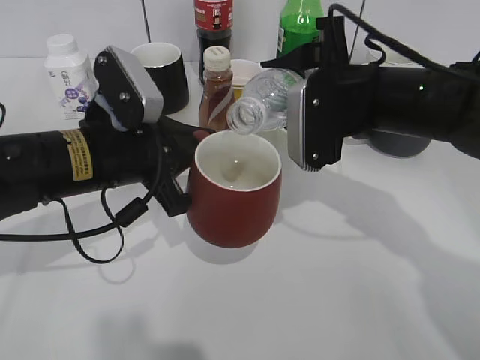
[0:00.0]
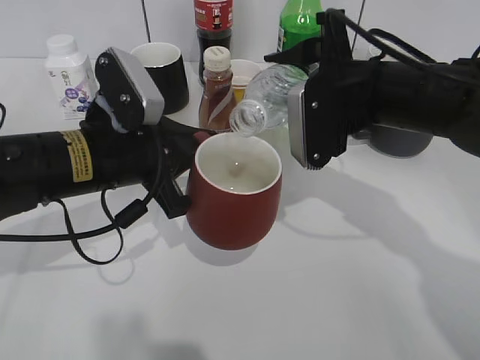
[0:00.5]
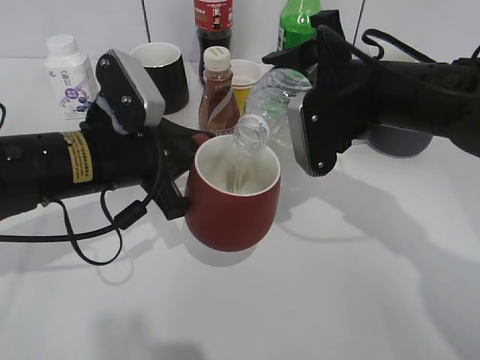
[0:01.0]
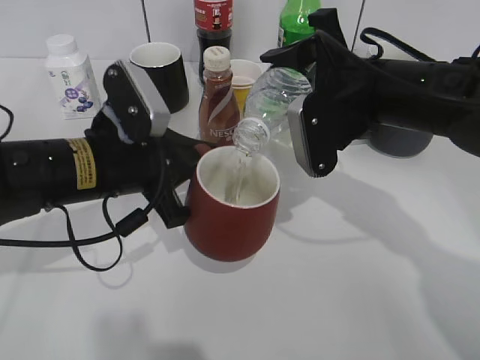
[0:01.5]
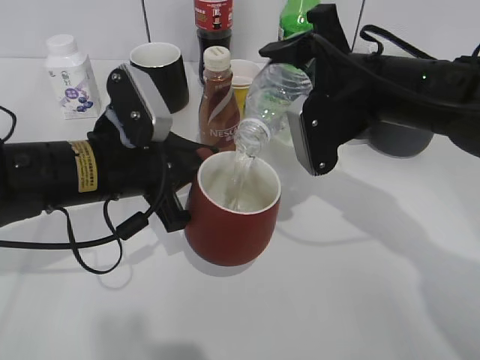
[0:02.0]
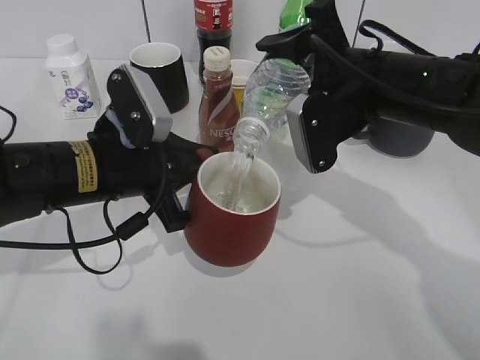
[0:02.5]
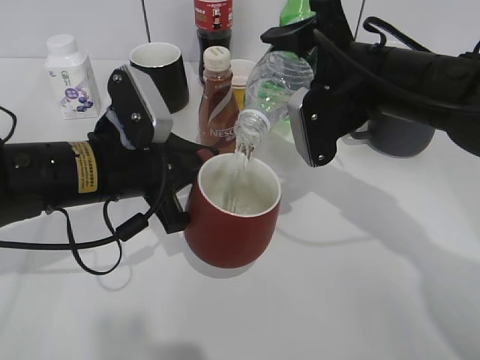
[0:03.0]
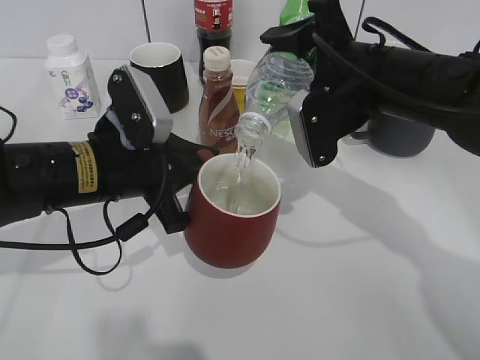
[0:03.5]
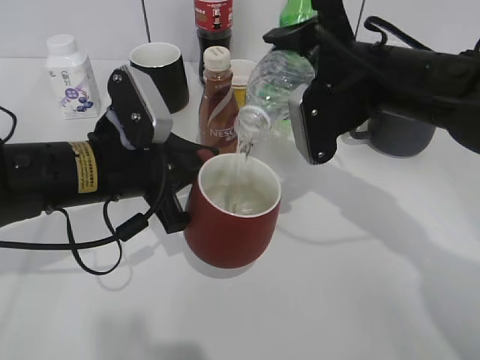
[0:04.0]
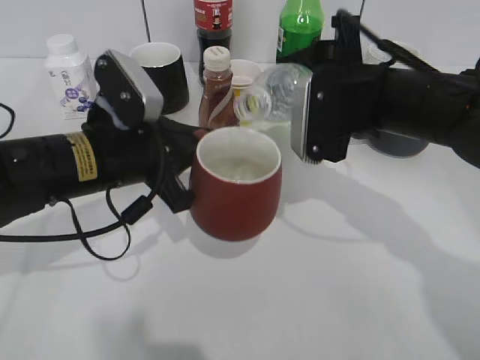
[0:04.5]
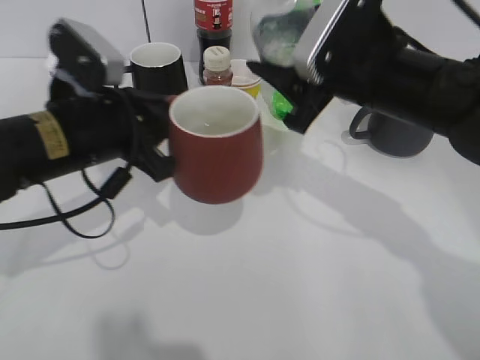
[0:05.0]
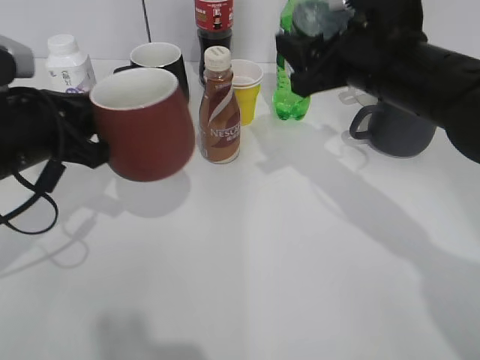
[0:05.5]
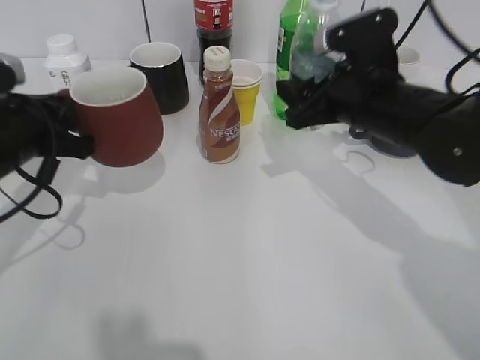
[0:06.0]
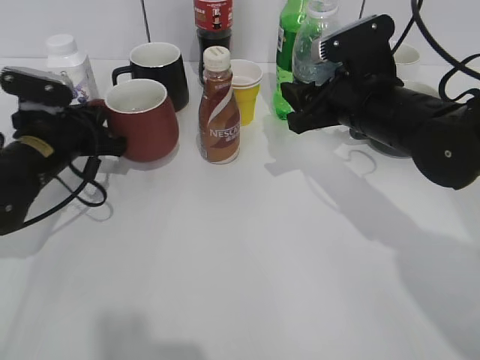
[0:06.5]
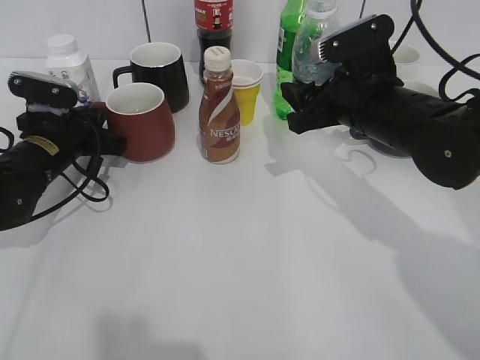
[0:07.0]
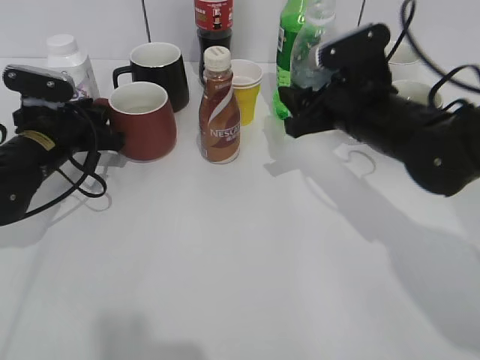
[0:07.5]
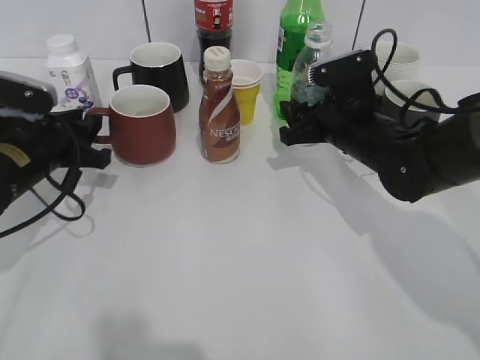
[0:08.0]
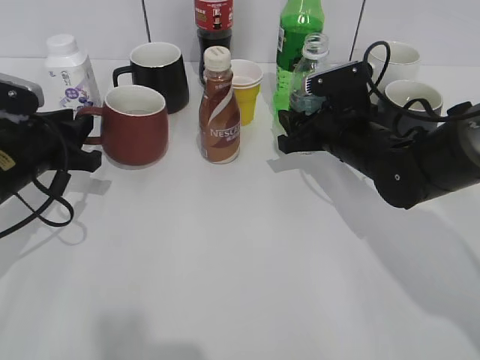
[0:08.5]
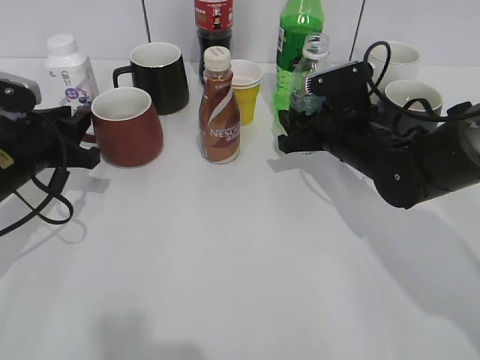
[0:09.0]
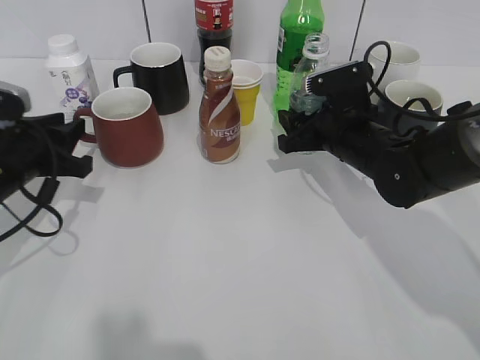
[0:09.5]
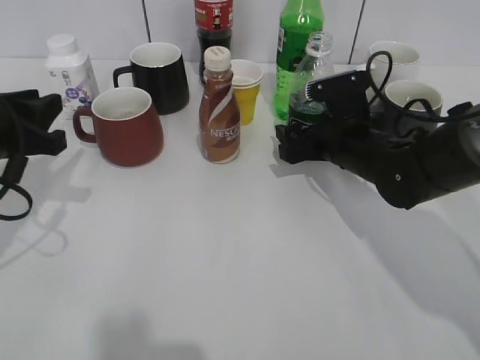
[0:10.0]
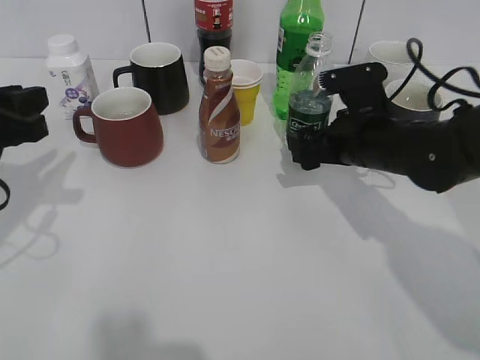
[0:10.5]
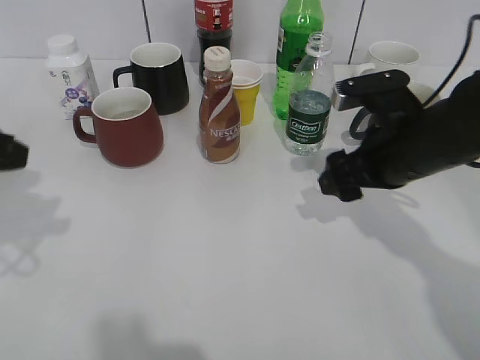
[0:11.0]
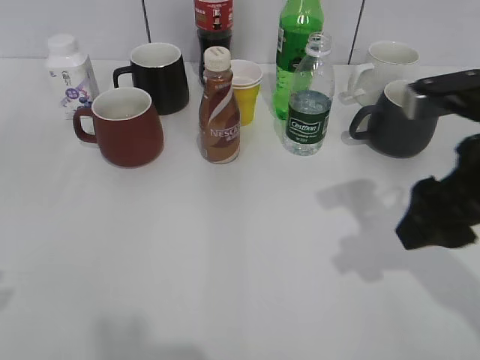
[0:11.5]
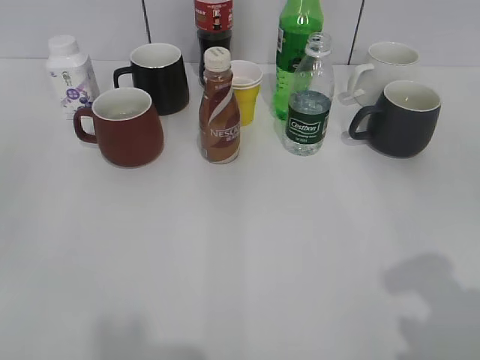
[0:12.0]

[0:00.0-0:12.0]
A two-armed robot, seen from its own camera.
Step, 0:00.0 to 0:04.5: Pour the water from bottle to cup with right gripper.
Step, 0:05.0 to 0:07.5: Place the red cup on the table with left gripper.
Step, 0:08.0 to 0:10.0: Place the water bottle on the table with right gripper.
0:02.0 to 0:04.0: The grippers make only small movements.
0:04.0 to 0:06.0: The left gripper moves to the left, about 10 cm.
0:06.0 to 0:08.0: The left gripper opens up, while the right gripper travels downward by roughly 5 cm.
0:08.0 to 0:10.0: The right gripper opens up, while the left gripper moves upward and backward, approximately 10 cm.
0:10.0 to 0:12.0: The right gripper shifts roughly 35 cm backward, upward and to the right, and closes. The left gripper goes some 20 cm backward.

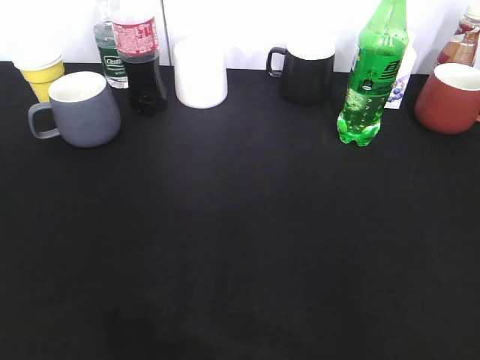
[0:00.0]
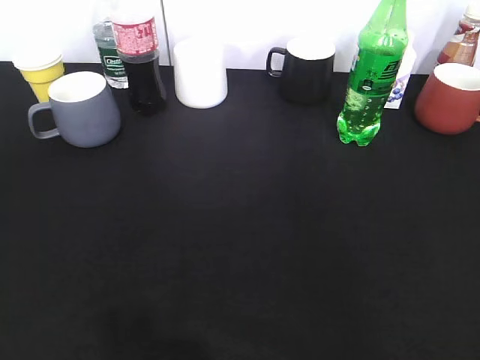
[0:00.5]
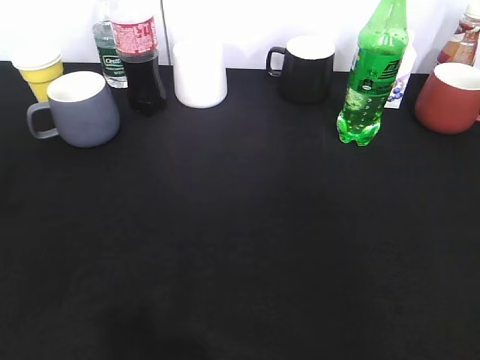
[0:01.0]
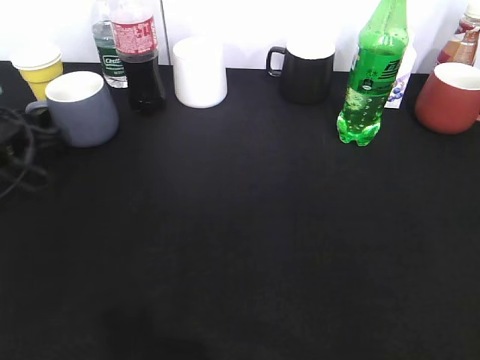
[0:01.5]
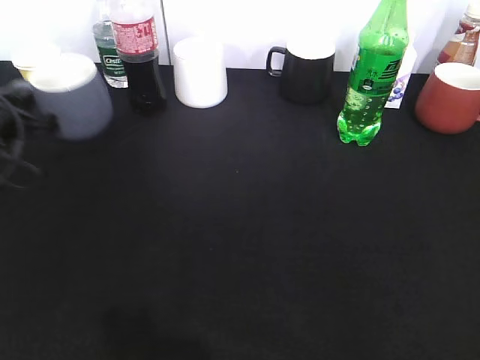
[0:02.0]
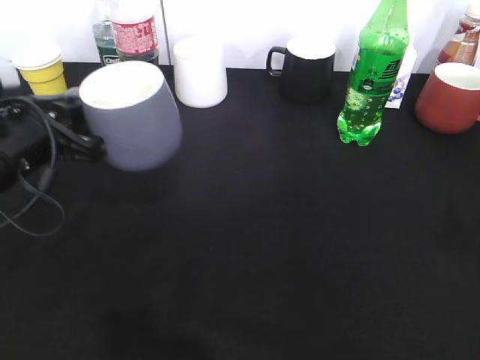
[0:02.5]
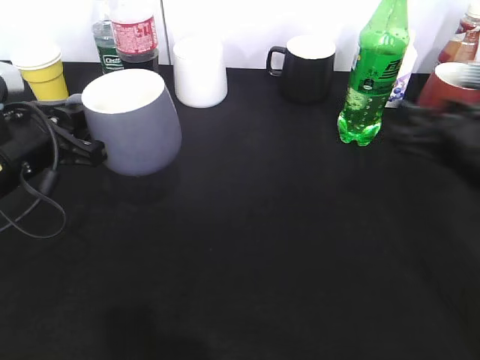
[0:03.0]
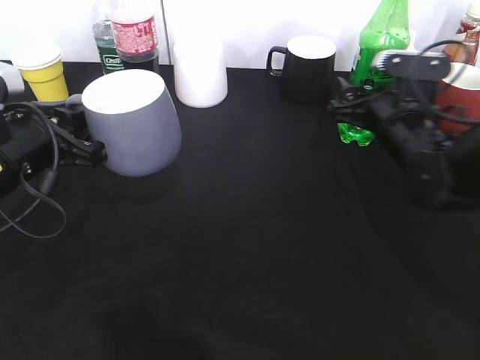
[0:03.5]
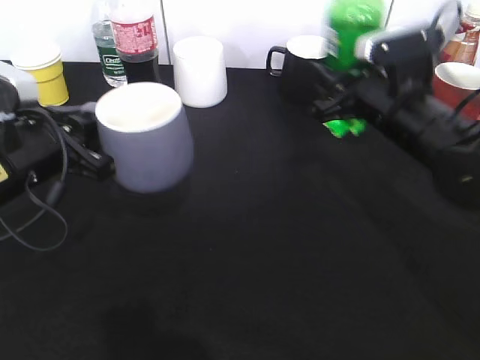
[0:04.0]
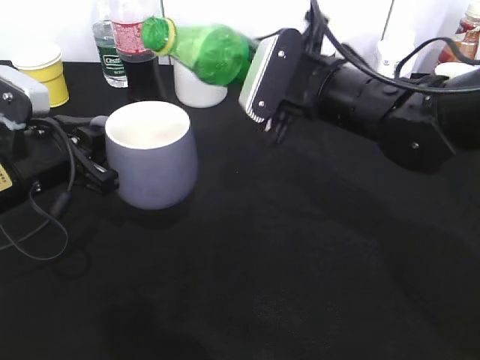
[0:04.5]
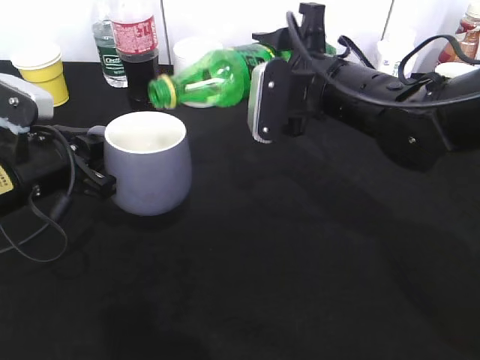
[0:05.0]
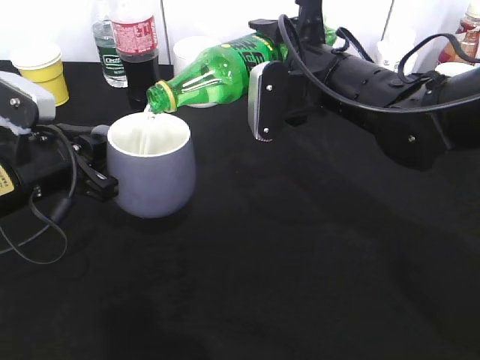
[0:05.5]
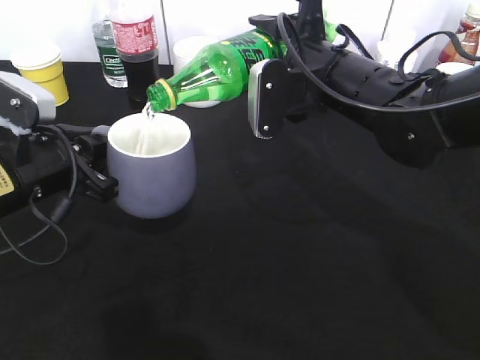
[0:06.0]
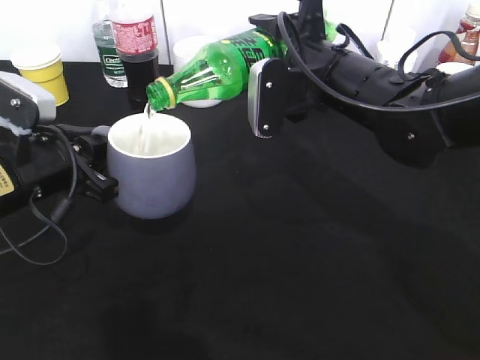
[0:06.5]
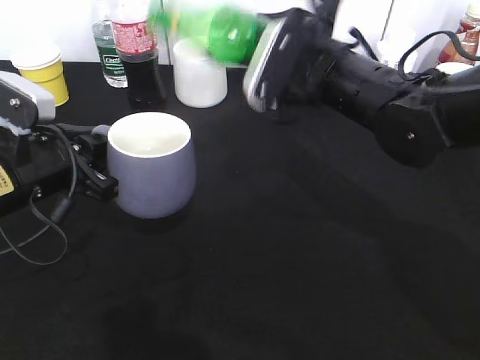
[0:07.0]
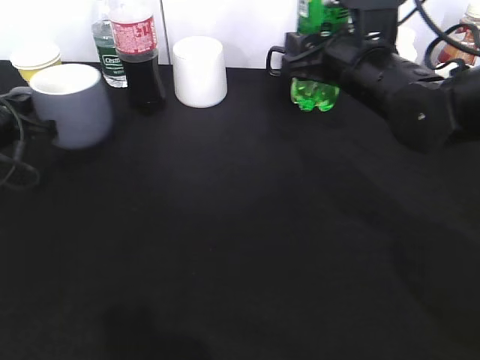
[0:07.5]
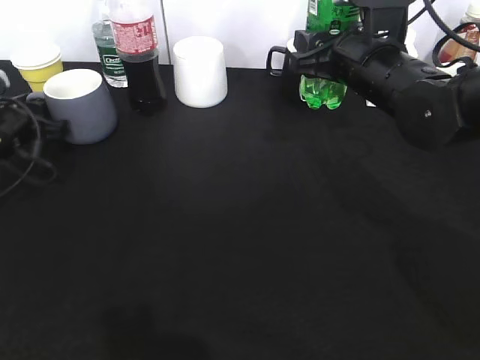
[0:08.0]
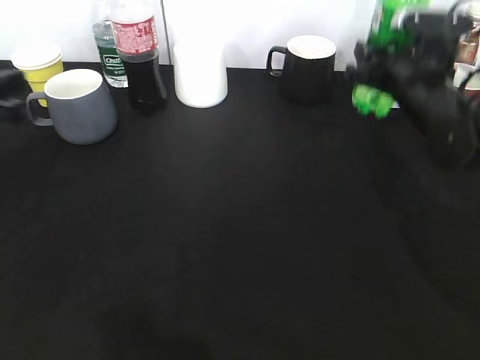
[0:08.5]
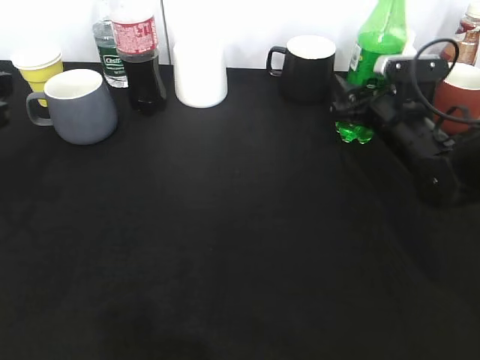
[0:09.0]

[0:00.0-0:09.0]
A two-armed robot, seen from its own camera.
Step, 0:02.0 to 0:02.5: Lift the grey cup with left gripper.
Step, 0:03.0 to 0:03.5: Grasp the bottle with sprite with right gripper.
Step, 0:04.0 to 0:06.5: Pour the sprite from bottle to cup with right gripper.
0:00.0 to 0:02.0: The left gripper shifts about 35 cm forward, and closes its fingers.
0:02.0 to 0:04.5: The right gripper shifts approximately 40 cm forward and to the left, and closes its fingers. Meanwhile the left gripper goes some 10 cm to the right and backward.
0:07.0 to 0:09.0: The right gripper goes some 15 cm to the right and downward, and opens up. The left gripper goes roughly 10 cm upward and to the left, moves roughly 10 cm forward and comes back, and opens its fingers.

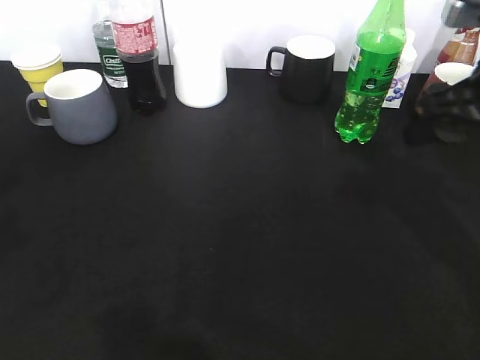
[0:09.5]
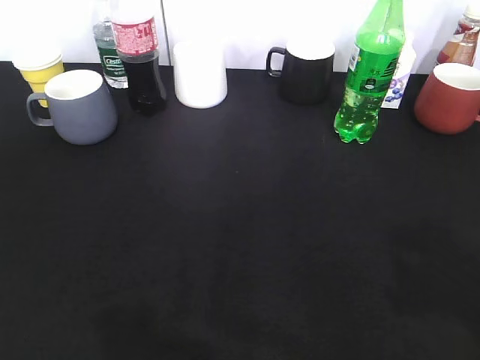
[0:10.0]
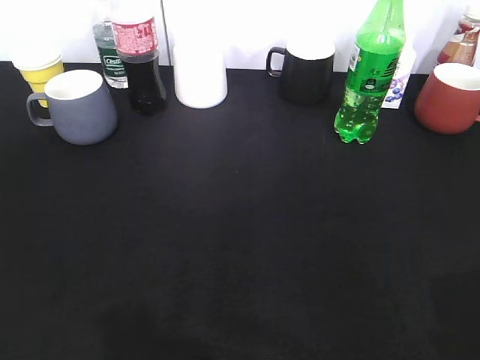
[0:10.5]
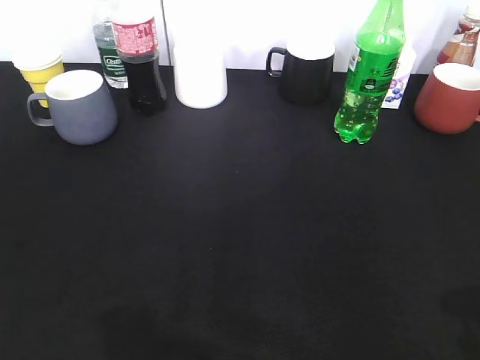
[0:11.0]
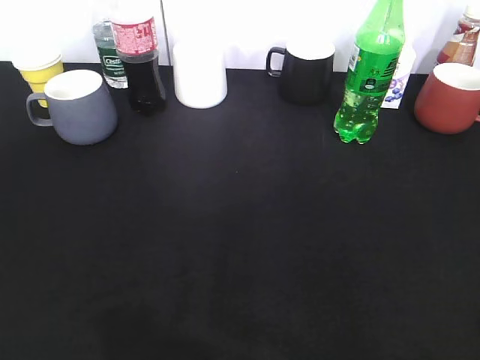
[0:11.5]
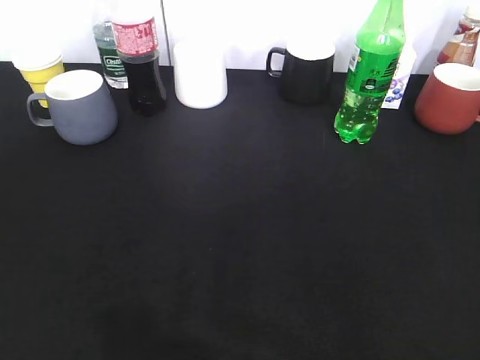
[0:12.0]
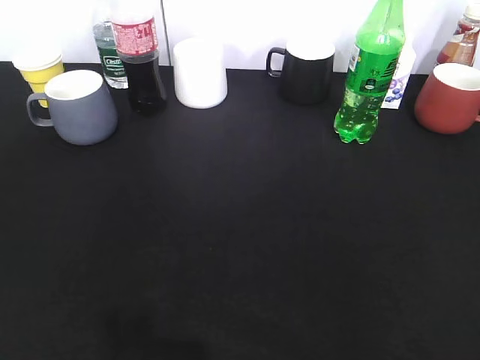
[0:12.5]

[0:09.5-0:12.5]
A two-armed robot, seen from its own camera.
0:09.5 to 0:11.0: The two grippers go approximately 20 cm backward.

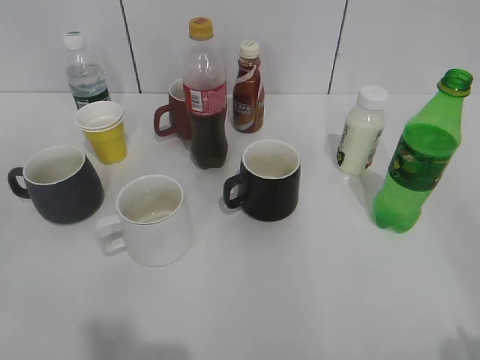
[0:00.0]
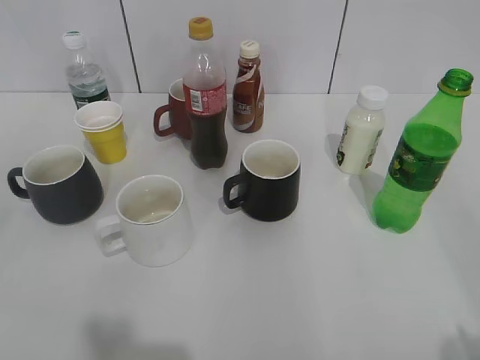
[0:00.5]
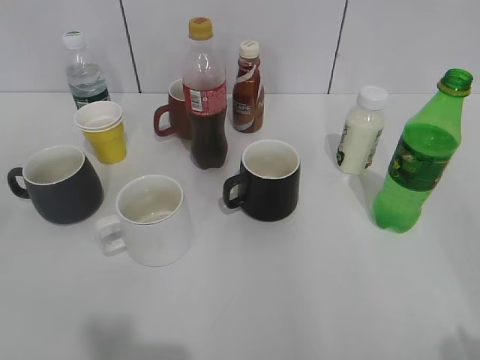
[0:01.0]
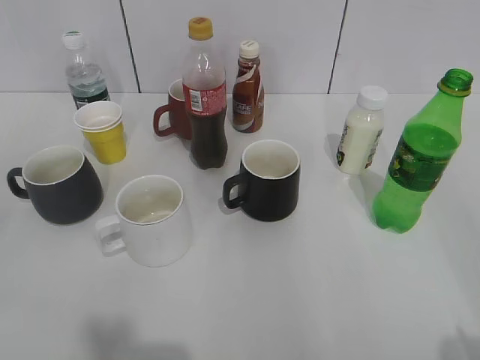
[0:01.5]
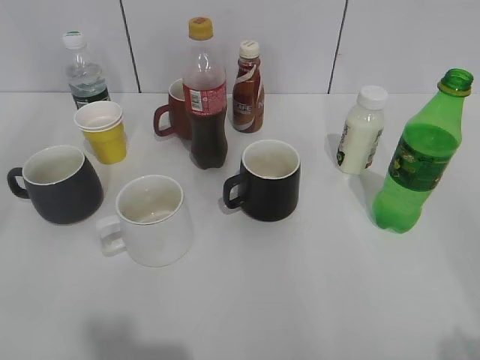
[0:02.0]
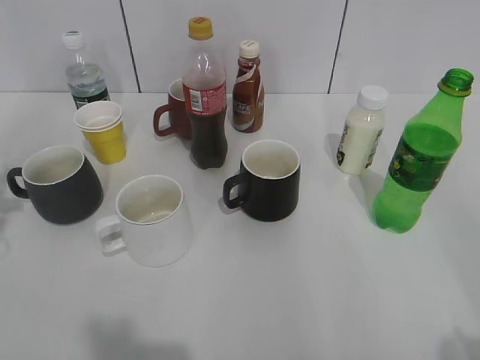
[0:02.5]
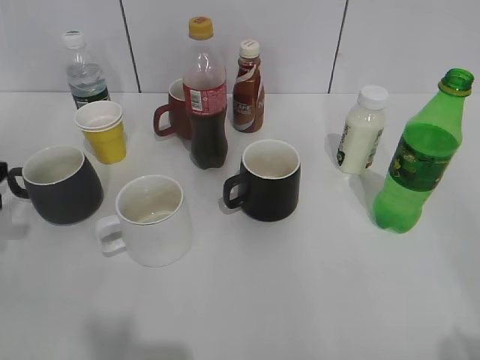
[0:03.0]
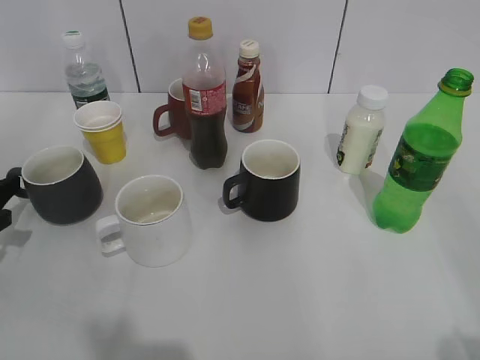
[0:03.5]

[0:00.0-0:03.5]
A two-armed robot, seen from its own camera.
0:02.0 to 0:03.5: The left gripper travels downward and forward by some 30 cm.
